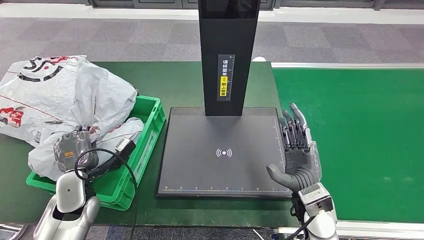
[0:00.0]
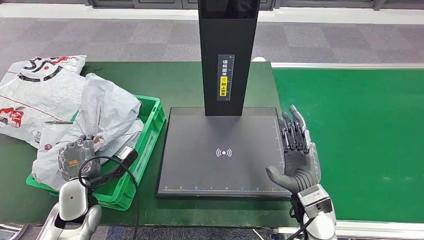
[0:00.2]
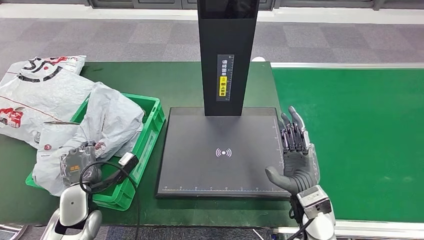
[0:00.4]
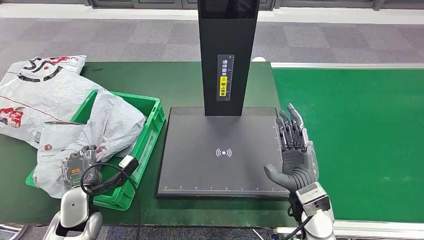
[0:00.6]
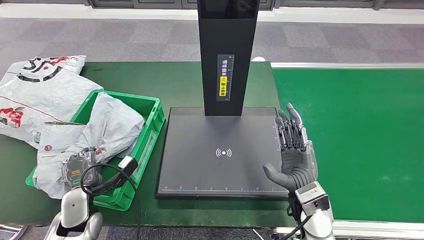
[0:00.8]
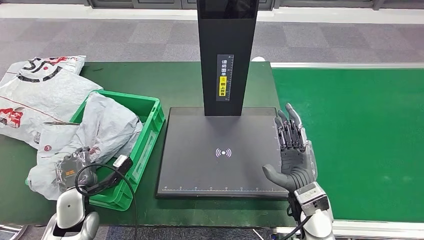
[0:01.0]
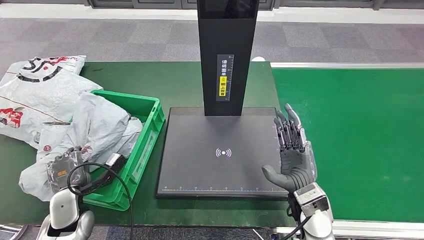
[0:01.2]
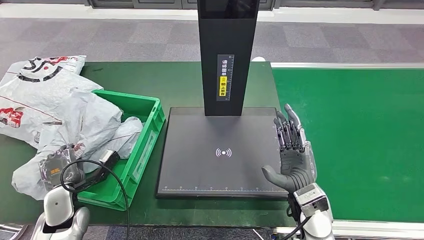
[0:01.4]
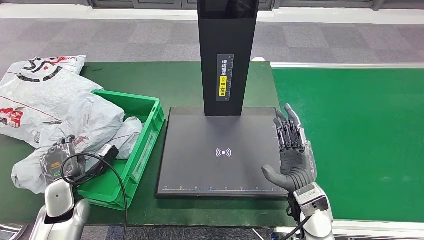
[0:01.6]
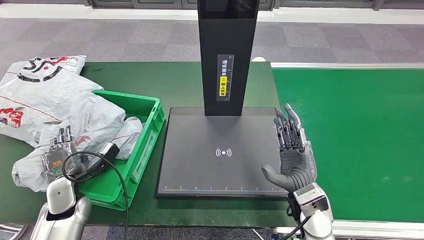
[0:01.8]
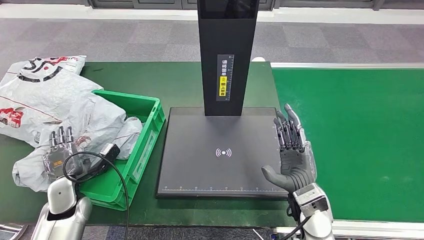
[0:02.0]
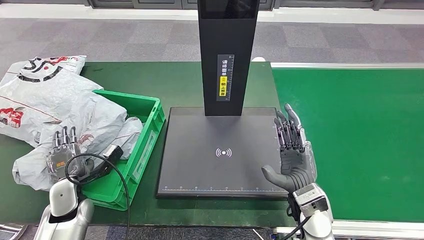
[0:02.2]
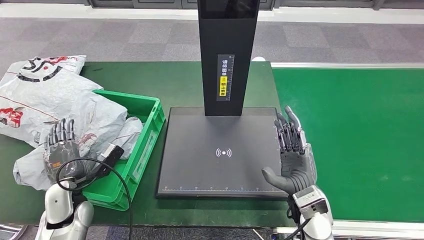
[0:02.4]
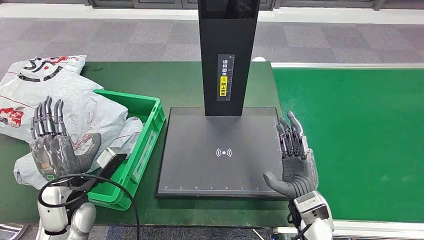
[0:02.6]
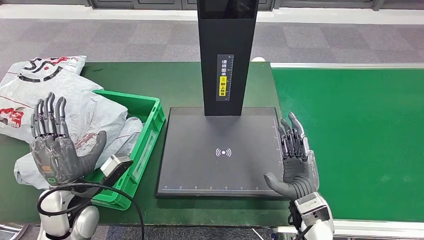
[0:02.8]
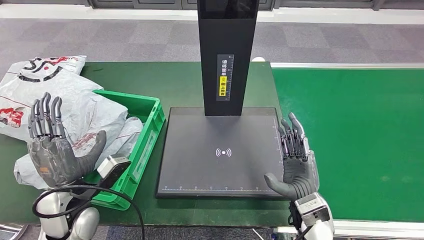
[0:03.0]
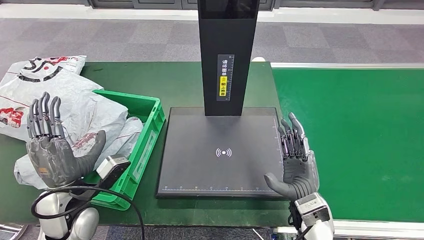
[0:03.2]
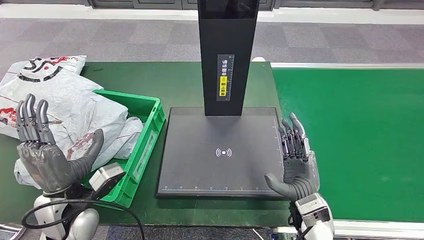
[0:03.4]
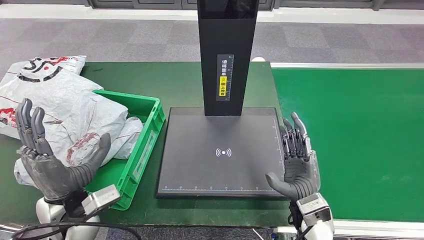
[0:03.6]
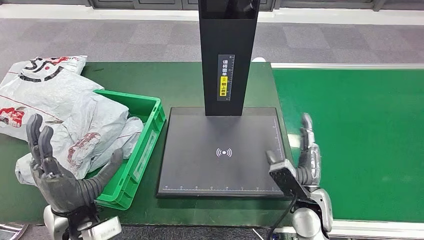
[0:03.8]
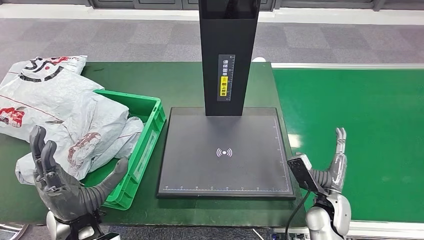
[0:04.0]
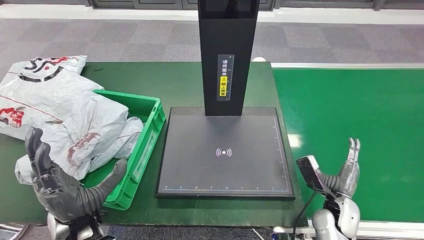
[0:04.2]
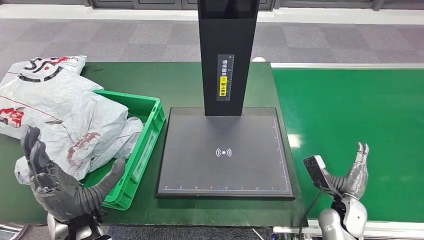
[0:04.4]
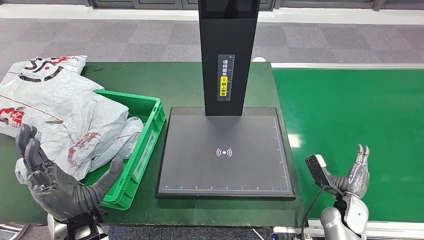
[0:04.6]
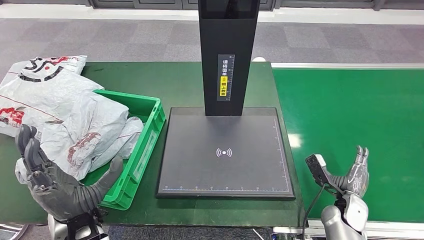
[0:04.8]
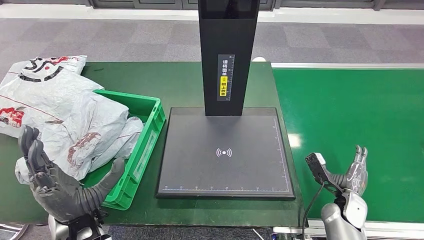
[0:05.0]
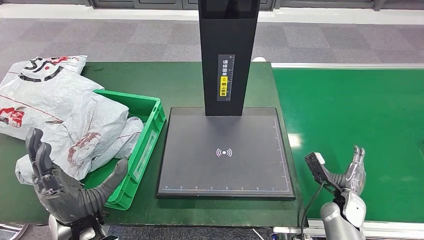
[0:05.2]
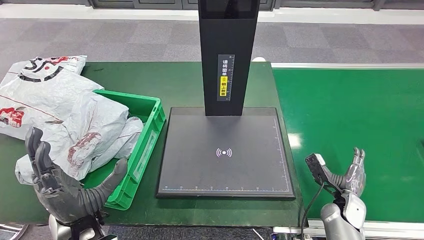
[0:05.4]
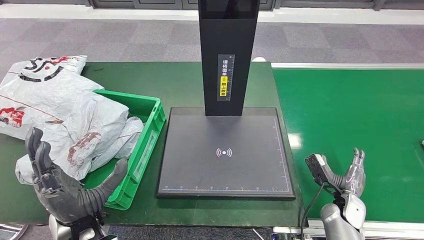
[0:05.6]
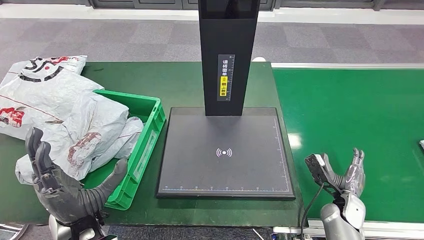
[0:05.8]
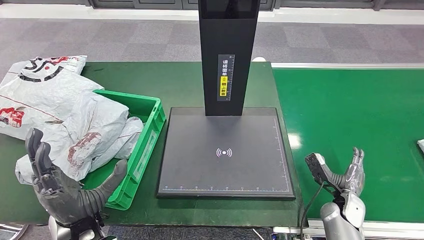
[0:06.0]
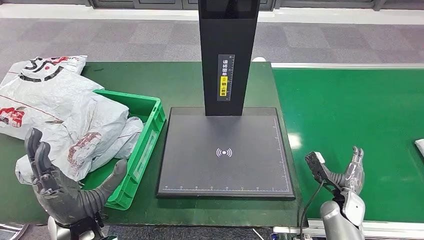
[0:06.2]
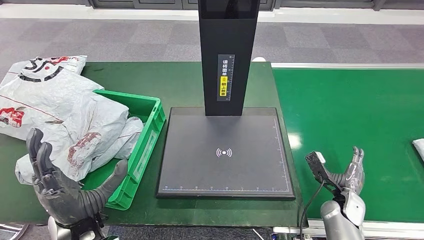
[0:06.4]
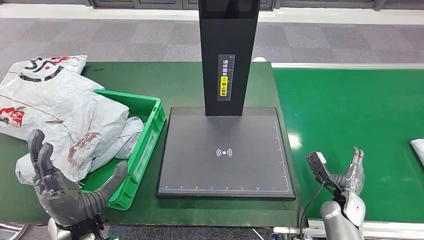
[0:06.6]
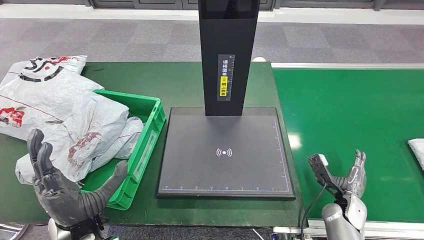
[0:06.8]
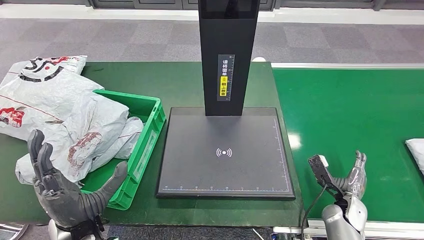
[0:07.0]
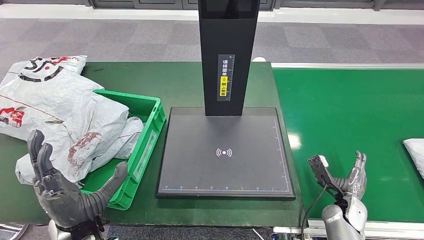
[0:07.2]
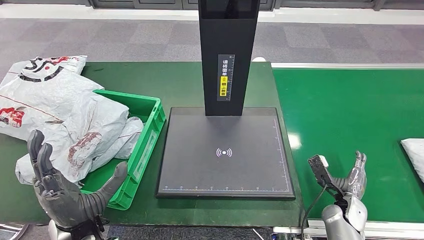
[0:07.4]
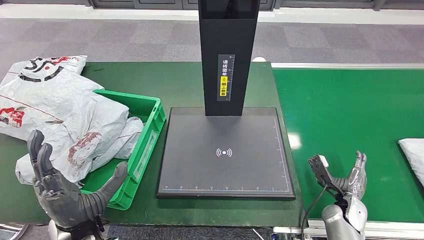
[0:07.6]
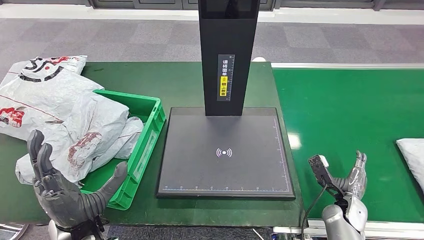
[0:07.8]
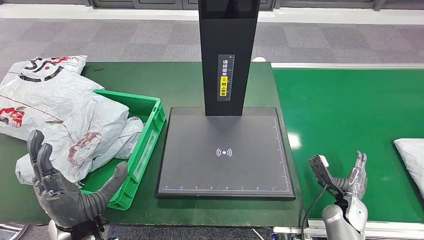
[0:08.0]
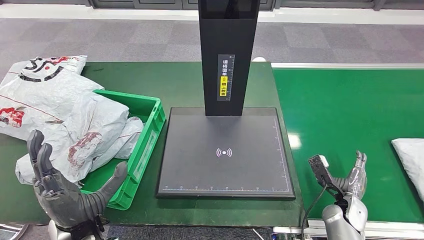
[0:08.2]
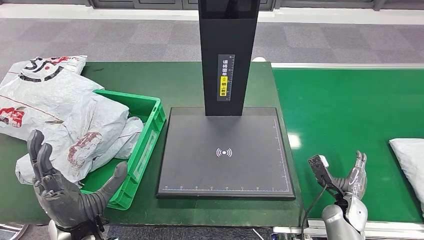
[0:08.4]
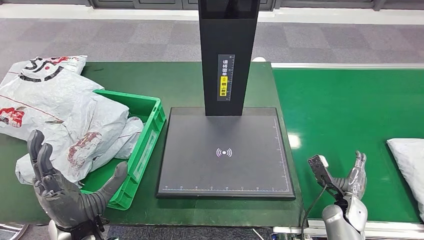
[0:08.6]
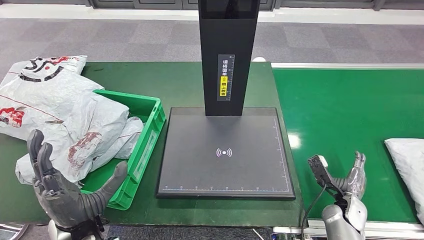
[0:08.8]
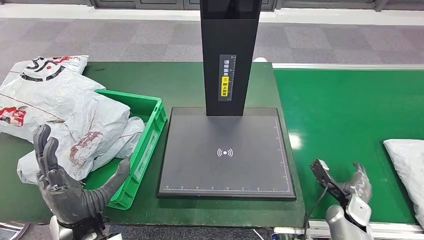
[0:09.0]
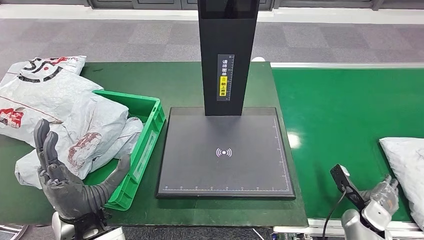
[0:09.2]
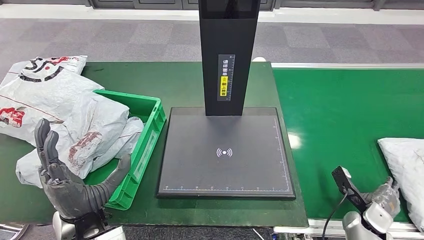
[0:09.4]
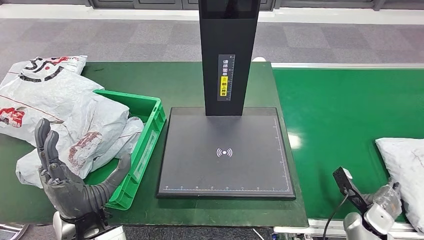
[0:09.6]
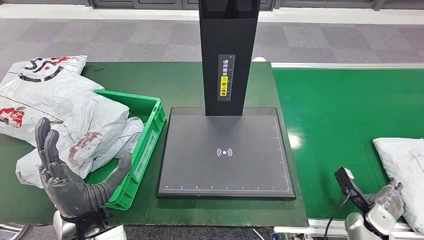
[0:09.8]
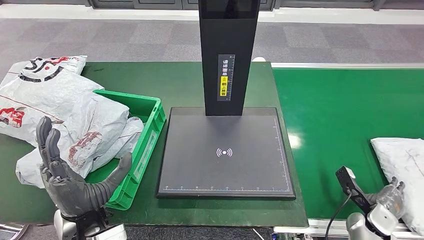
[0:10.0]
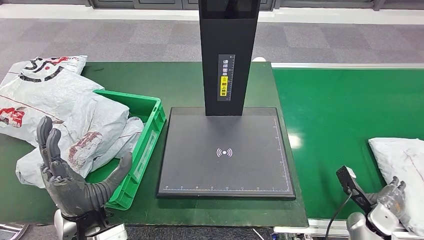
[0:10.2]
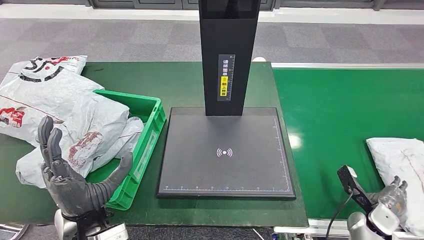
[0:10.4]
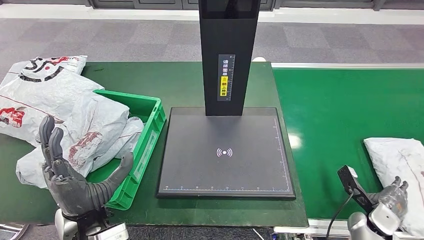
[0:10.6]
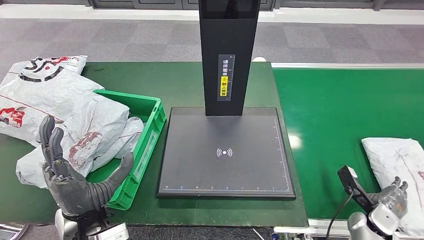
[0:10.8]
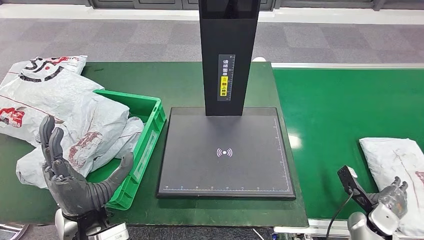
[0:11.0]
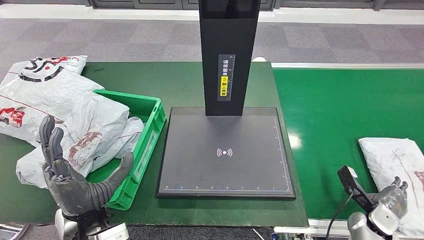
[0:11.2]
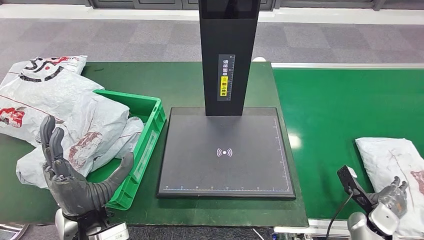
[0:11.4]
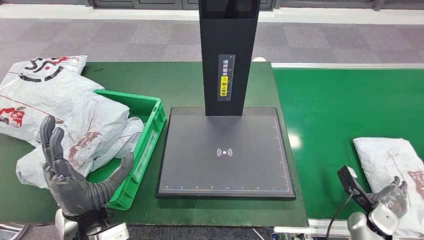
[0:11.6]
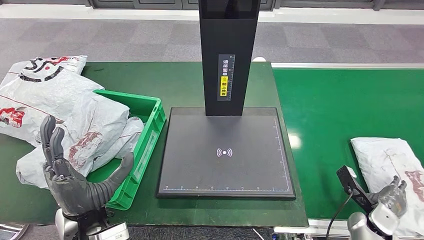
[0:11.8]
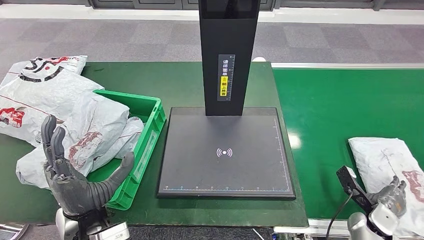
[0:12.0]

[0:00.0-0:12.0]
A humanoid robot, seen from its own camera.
Step, 0:00.0 to 0:03.8: Place the parcel into the delivery box.
0:00.0 to 0:01.6: The left hand moves roughly 5 cm.
0:01.6 to 0:03.0: The left hand is displaced upward and to the right by about 15 cm.
0:03.0 to 0:04.4: The left hand ends up roughly 5 cm from where it was. Meanwhile the right hand heads to the right and downward, covering approximately 15 cm.
0:04.4 to 0:06.0: The hands stay close to where they were, moving slightly.
0:06.0 to 0:07.6: The two hands keep their place.
0:07.6 to 0:09.0: The hands make only small movements.
0:09.0 to 0:10.4: The right hand moves about 5 cm.
0:10.4 to 0:12.0: Neither hand changes place.

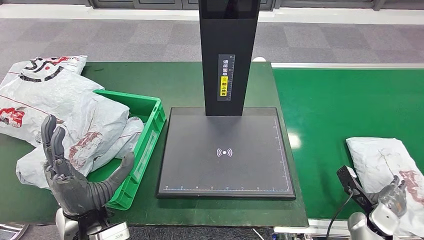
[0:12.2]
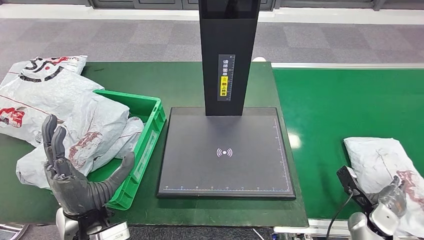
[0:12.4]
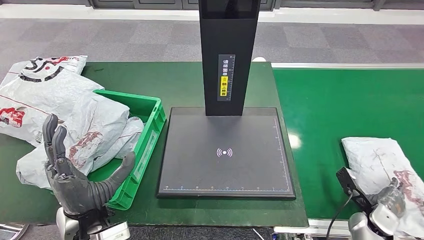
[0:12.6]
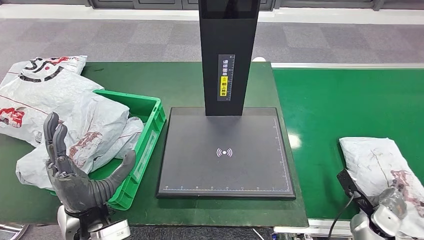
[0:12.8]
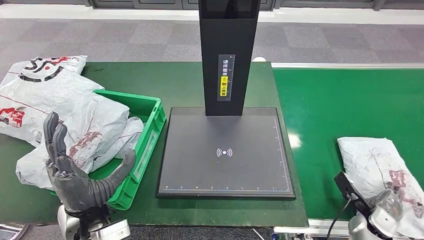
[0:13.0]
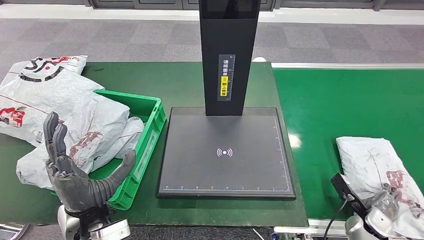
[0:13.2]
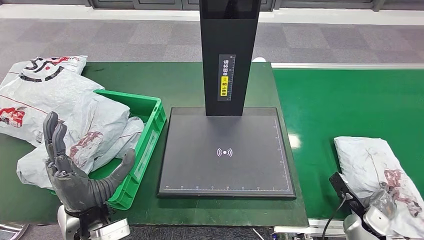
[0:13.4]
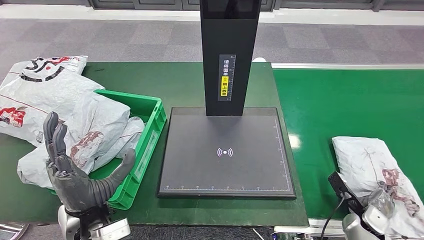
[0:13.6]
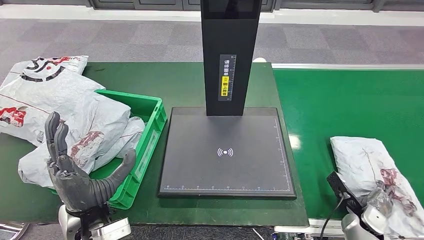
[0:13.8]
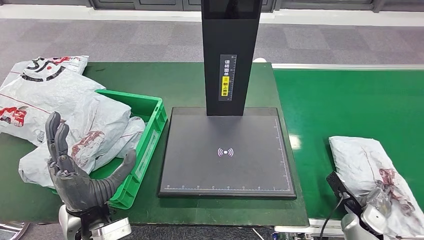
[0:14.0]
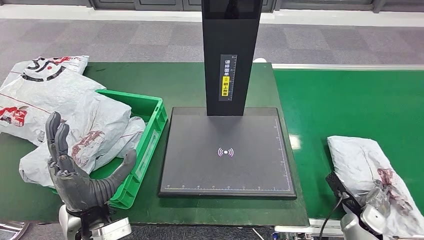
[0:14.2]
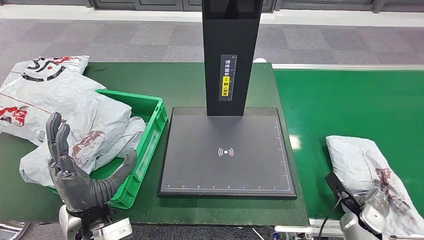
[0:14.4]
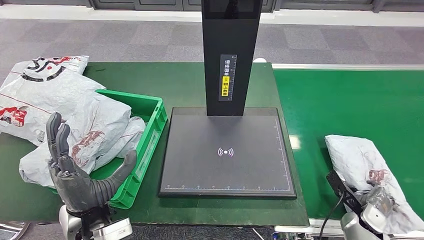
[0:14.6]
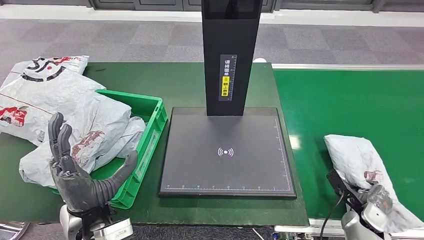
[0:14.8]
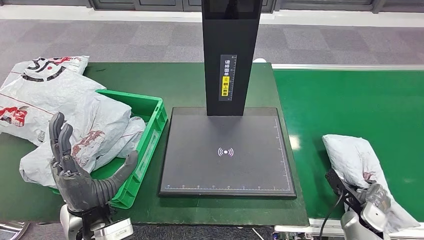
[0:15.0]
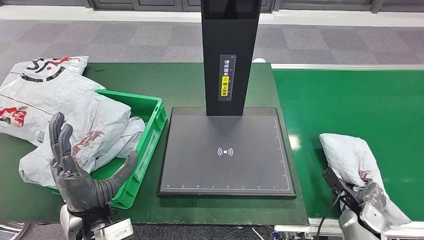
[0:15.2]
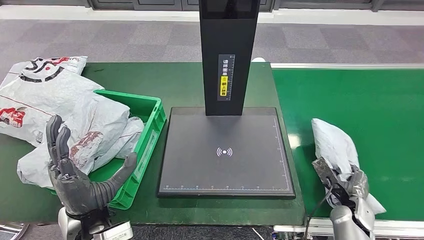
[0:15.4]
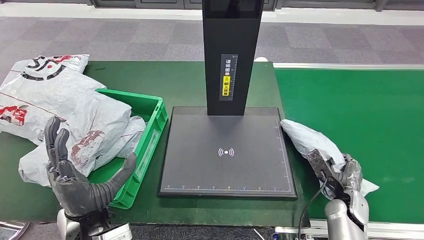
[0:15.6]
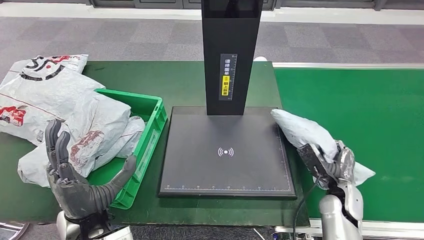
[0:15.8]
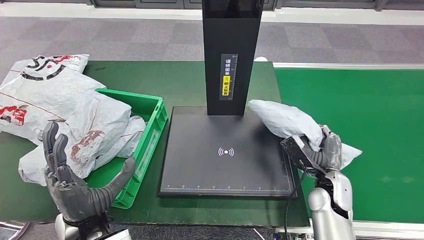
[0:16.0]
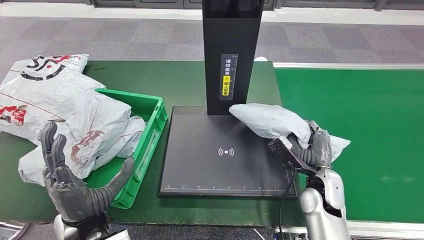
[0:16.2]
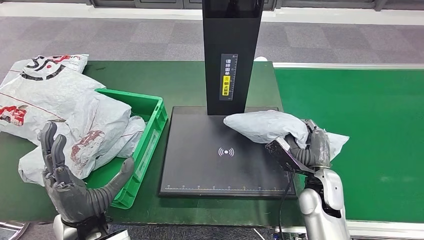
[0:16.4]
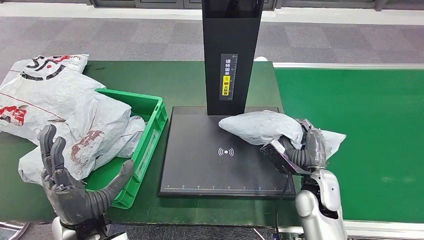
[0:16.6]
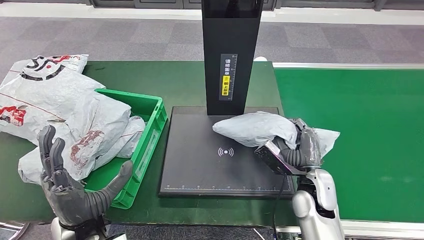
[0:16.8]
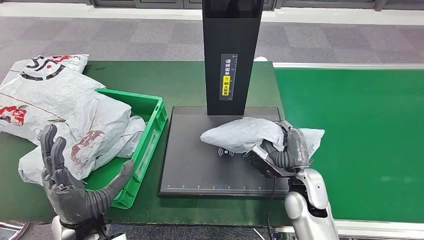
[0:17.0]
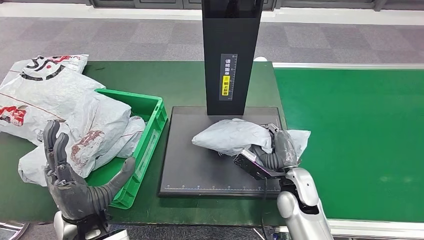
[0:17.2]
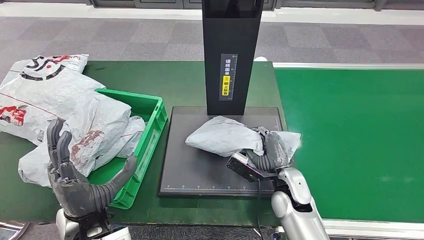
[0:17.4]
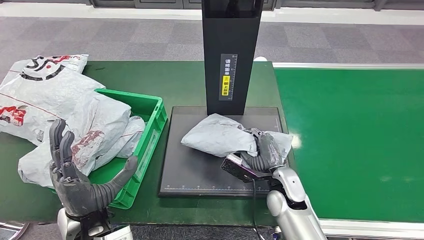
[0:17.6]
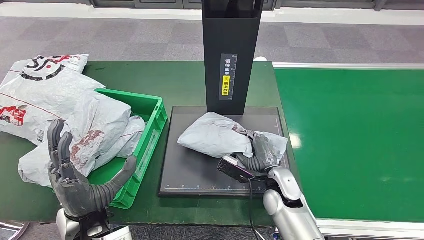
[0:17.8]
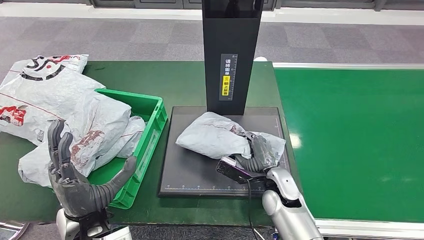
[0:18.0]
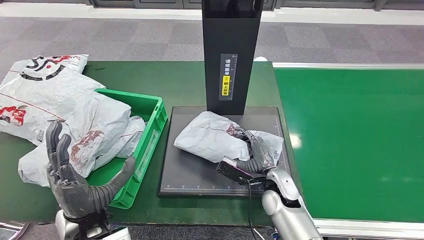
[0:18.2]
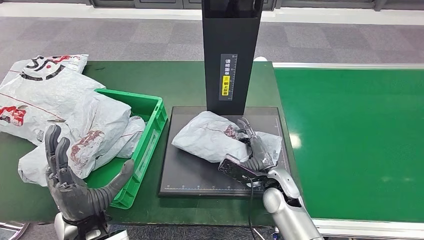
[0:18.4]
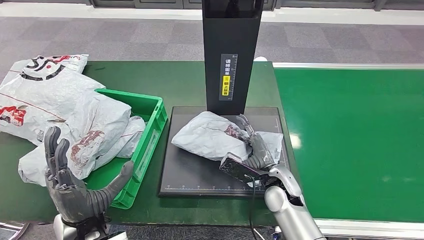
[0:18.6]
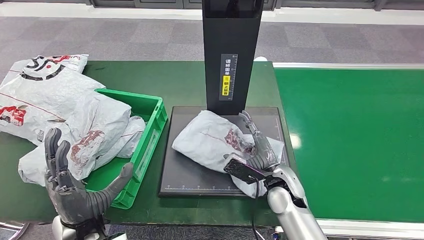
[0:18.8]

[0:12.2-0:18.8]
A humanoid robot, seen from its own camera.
Step, 0:12.2 to 0:15.6: Pick up the parcel from the conveyor belt.
0:12.2 to 0:13.8: The hands stay close to where they were, moving slightly.
